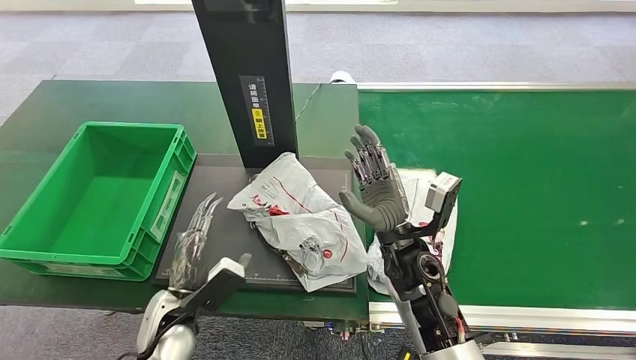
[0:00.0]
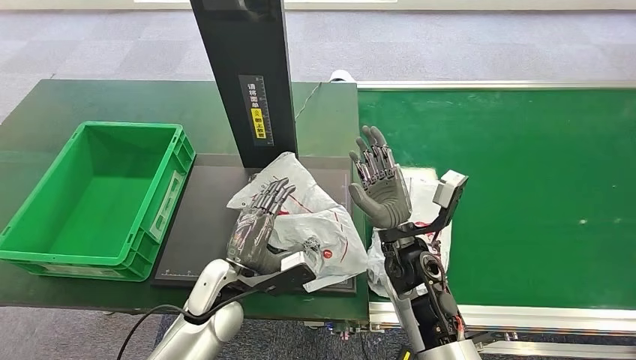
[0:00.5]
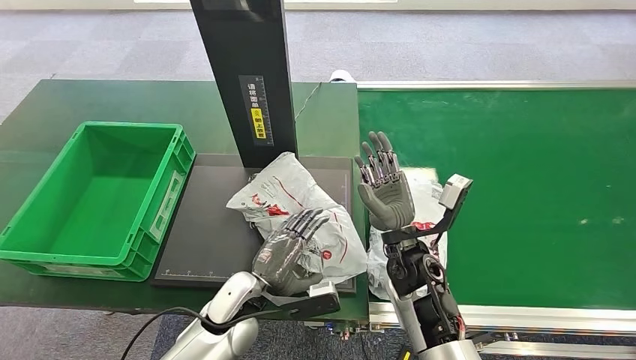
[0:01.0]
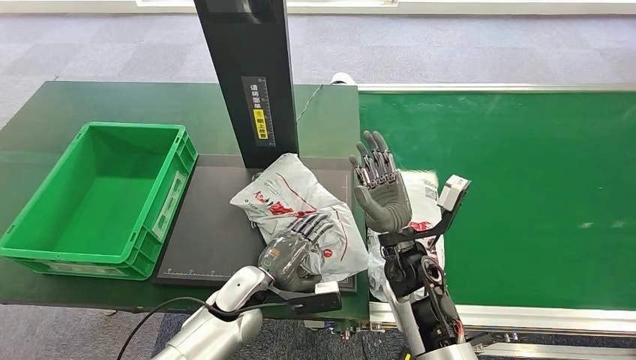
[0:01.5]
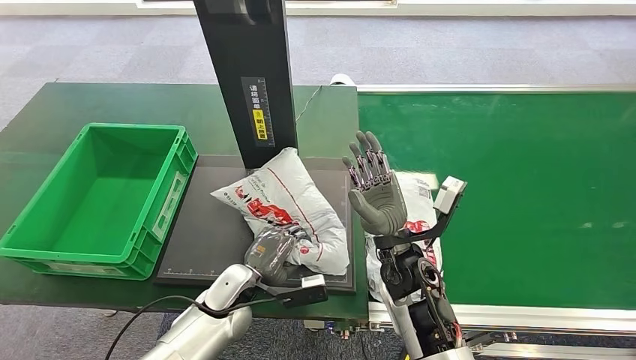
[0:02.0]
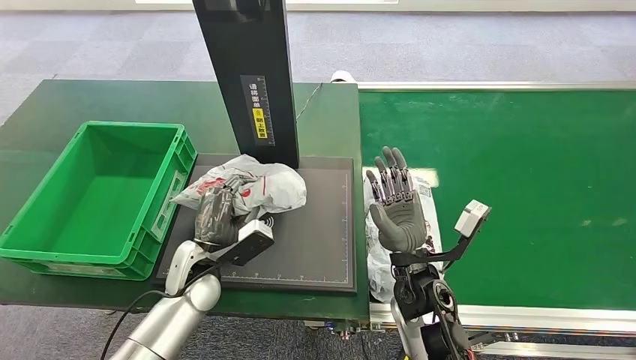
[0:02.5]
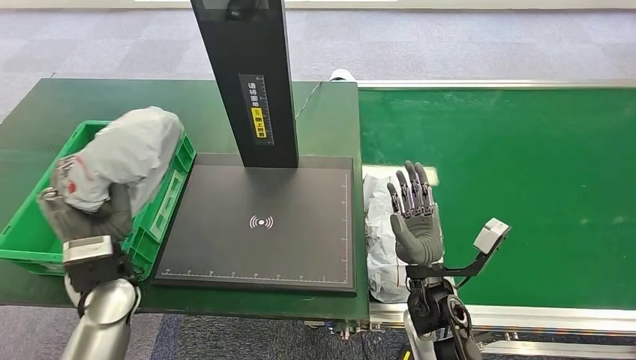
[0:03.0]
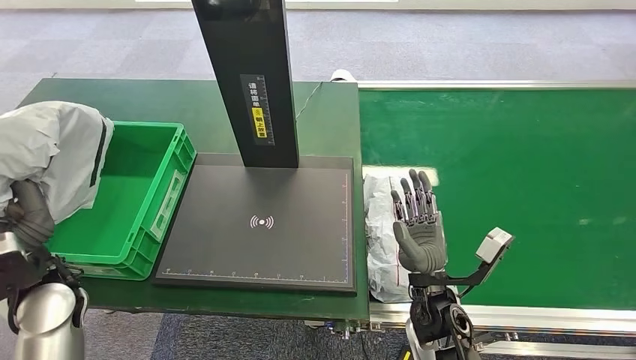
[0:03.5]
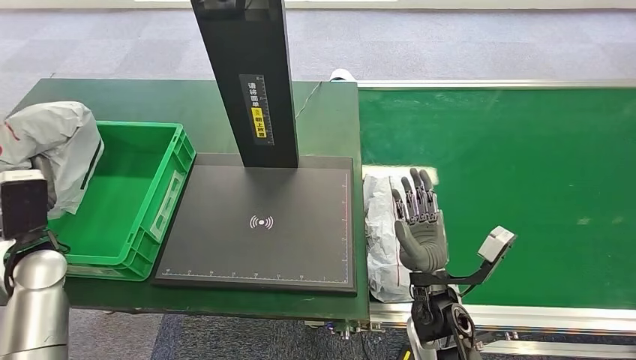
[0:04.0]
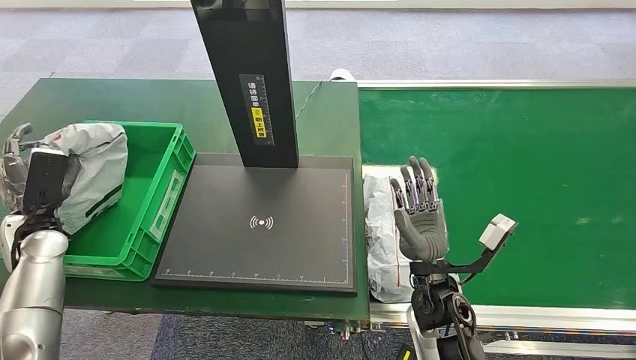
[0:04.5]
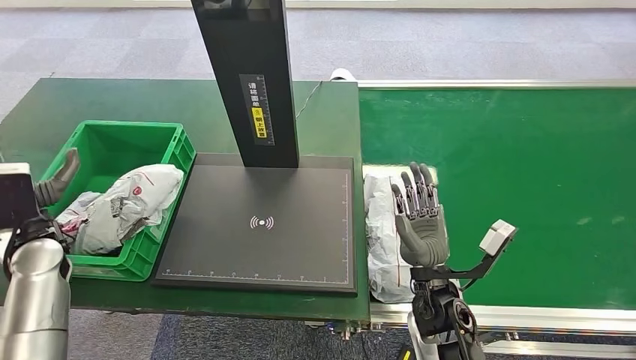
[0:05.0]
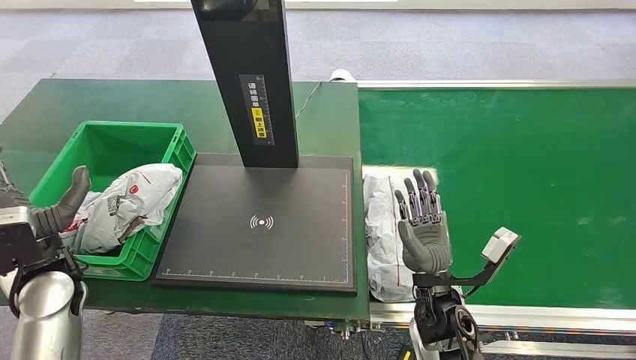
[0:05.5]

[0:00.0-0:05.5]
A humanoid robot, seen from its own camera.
0:03.5 to 0:05.5: The left hand reaches roughly 10 cm to the left, then returns.
